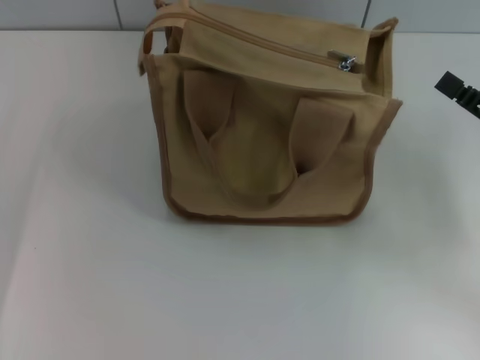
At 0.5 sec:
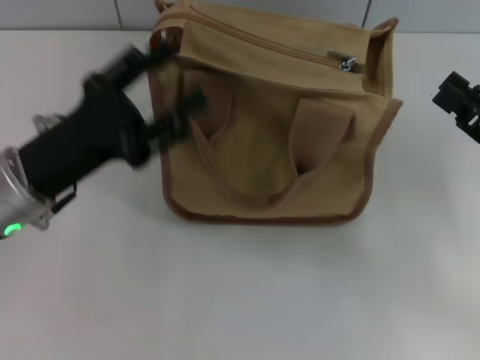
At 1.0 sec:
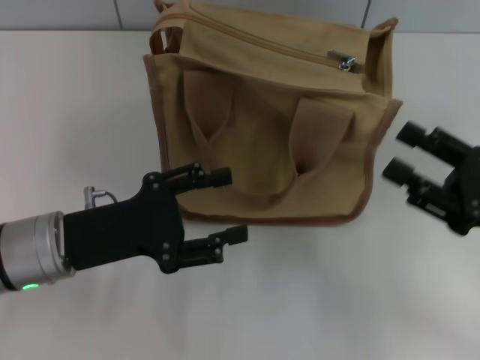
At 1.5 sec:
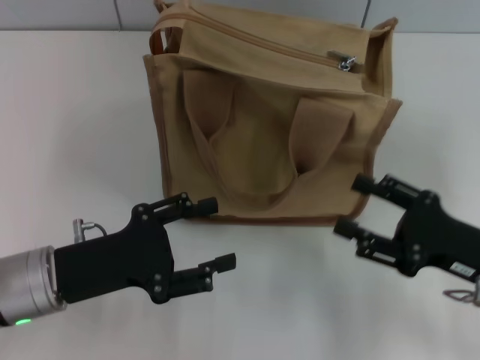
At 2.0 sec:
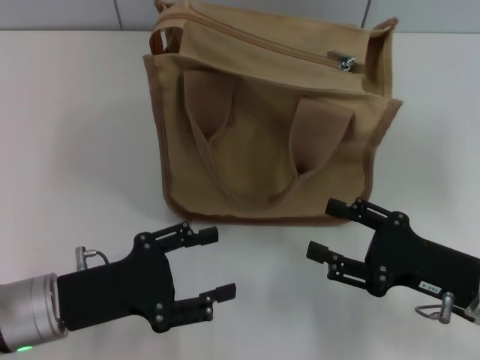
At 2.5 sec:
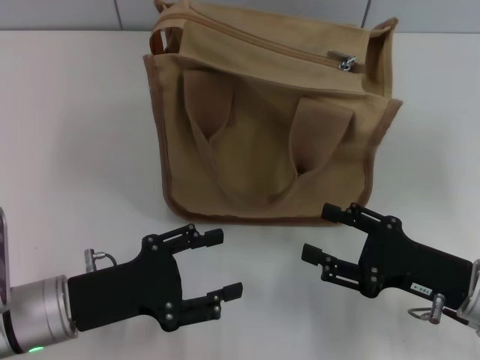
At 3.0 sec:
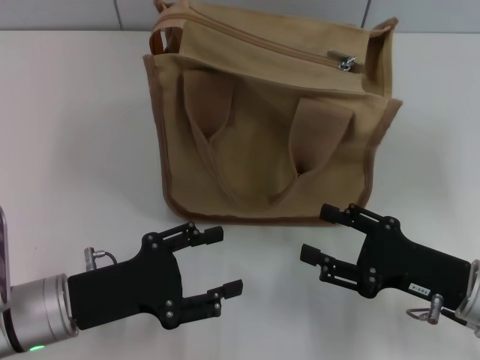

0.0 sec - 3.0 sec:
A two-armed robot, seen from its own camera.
0.0 sec - 1.5 sec: The left gripper shifts about 10 cm backward and to the right. The right gripper shifts about 5 cm to the left.
1.5 sec - 3.0 sec: The grippers make only small movements.

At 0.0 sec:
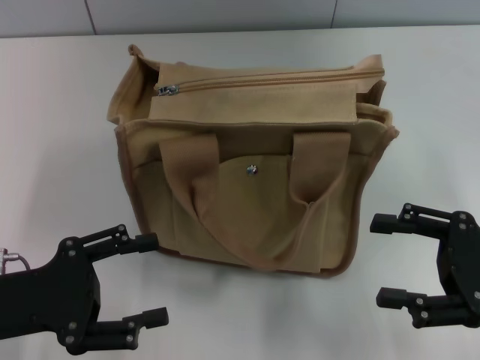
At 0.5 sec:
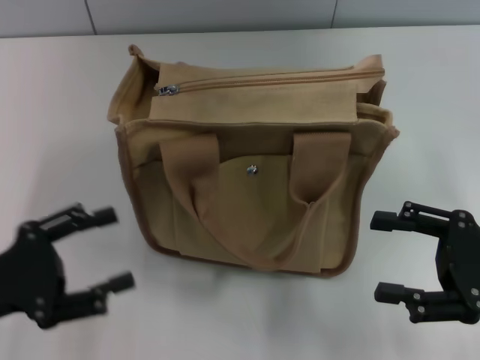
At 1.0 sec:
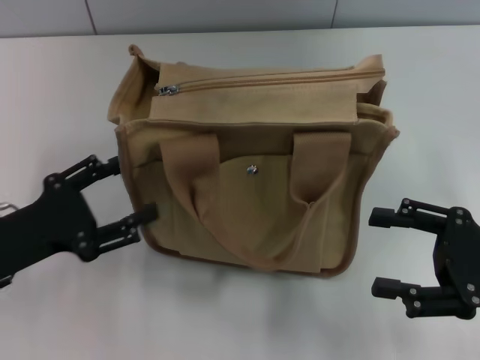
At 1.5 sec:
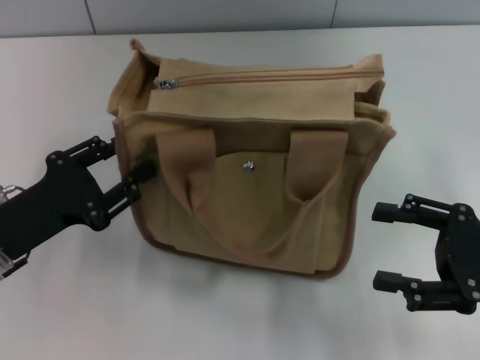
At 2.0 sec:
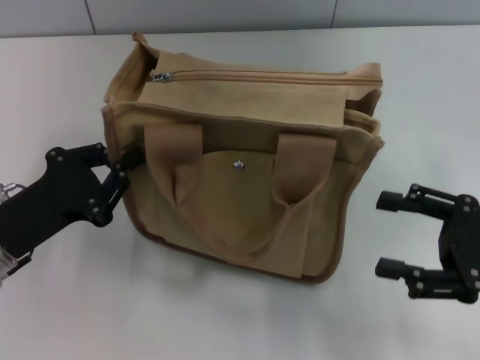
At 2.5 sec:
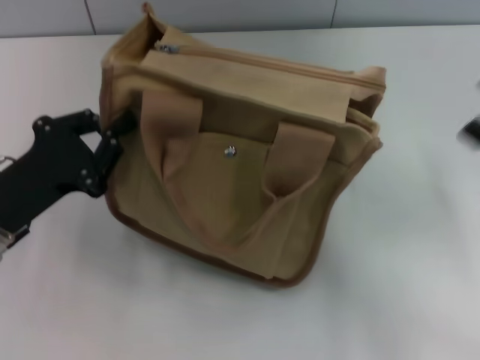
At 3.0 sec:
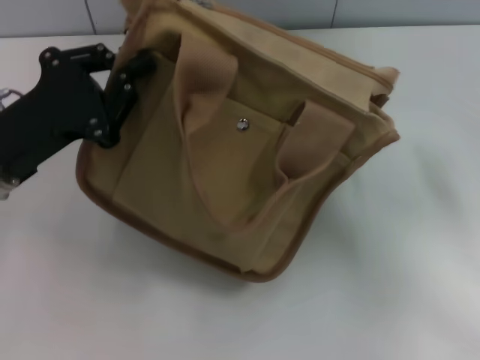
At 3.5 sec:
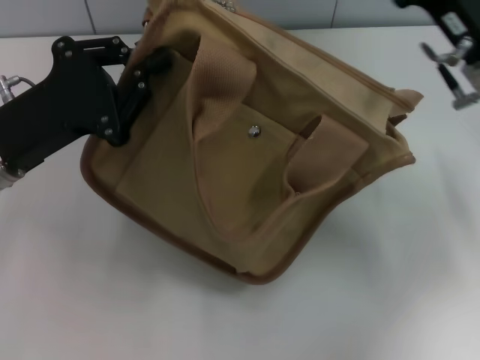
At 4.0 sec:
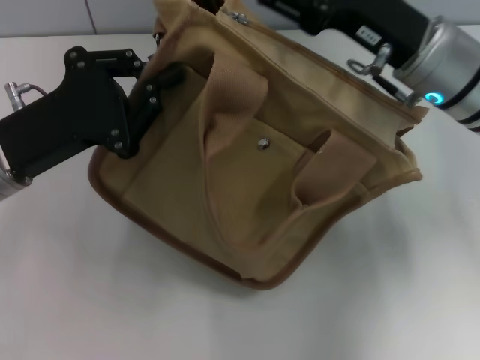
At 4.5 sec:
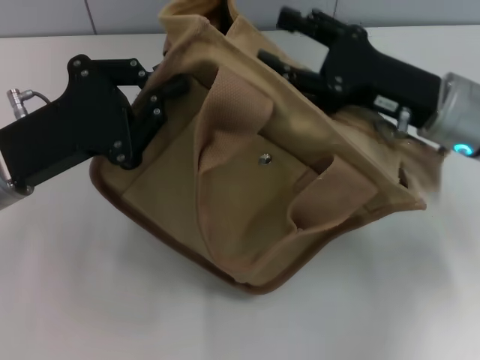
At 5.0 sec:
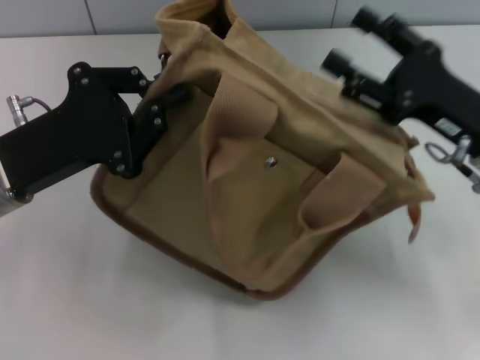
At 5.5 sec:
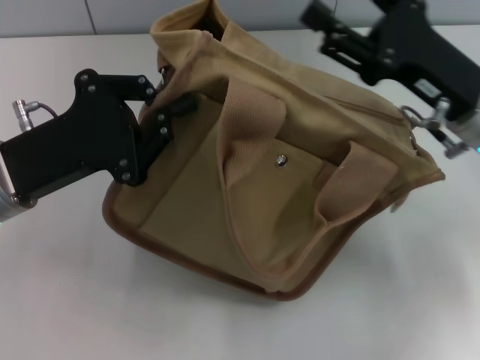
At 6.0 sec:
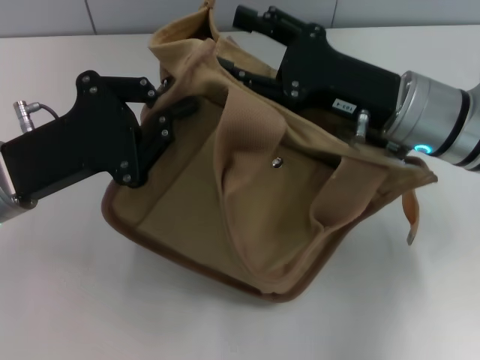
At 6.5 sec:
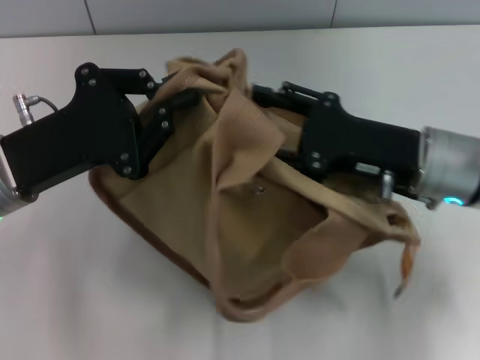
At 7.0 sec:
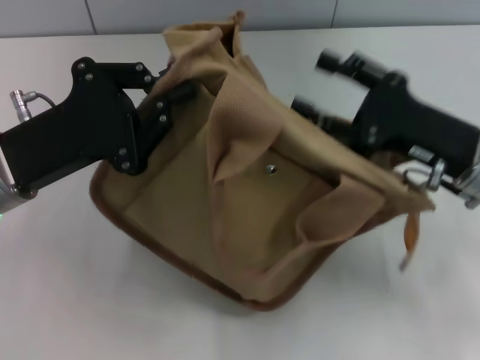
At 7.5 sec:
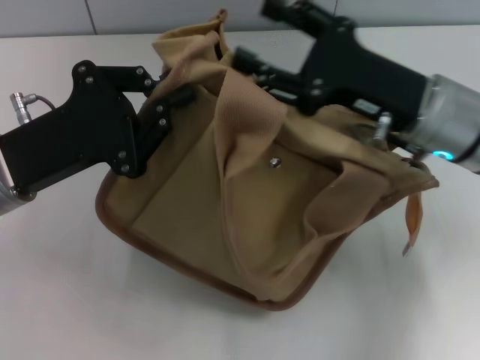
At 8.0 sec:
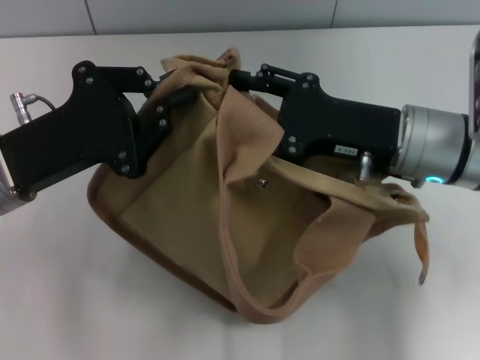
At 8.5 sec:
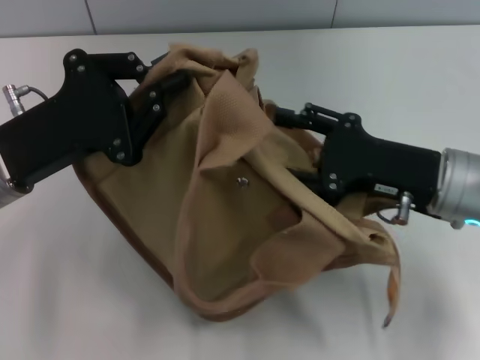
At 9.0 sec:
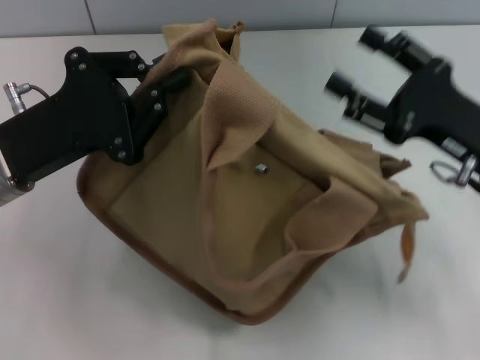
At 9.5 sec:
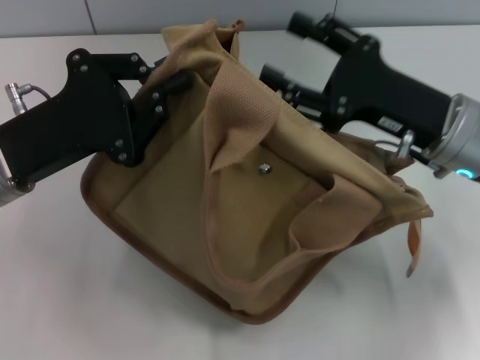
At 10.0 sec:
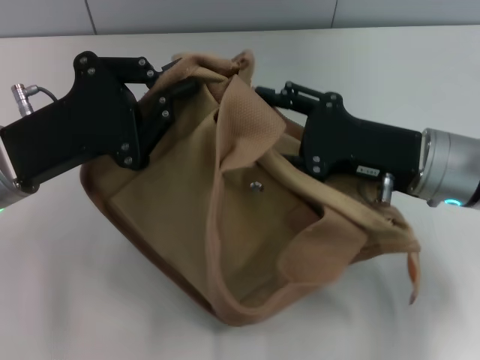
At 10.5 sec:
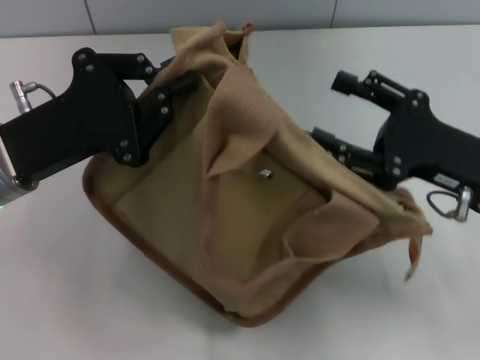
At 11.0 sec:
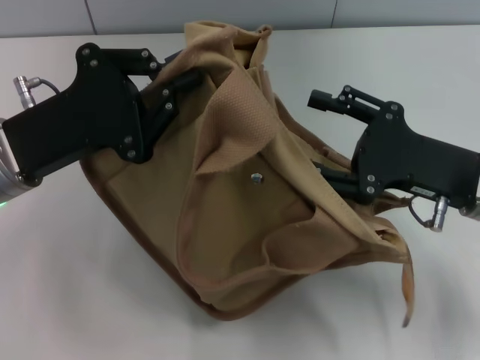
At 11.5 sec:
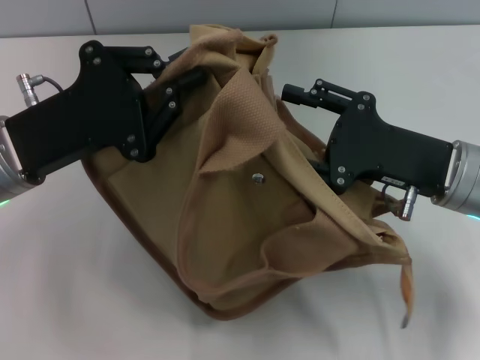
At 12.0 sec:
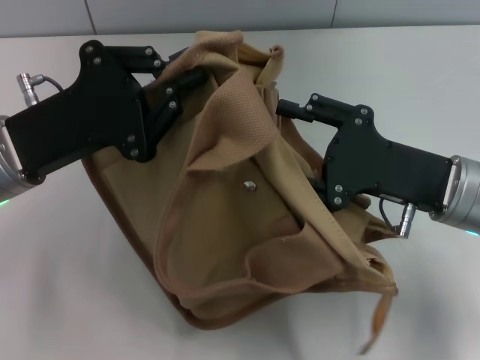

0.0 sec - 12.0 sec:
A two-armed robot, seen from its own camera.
0.0 sec - 2.0 sec: The left gripper closes its fingers.
2.0 sec - 4.0 sec: The right gripper heads forward, to the left and upward, covering some 20 cm. The left gripper is displaced upward and forward by approximately 10 cm.

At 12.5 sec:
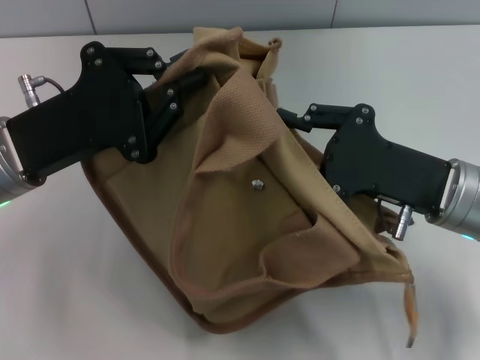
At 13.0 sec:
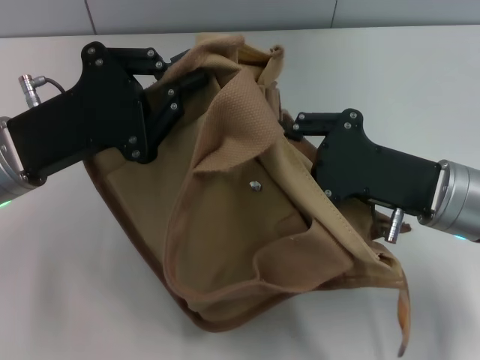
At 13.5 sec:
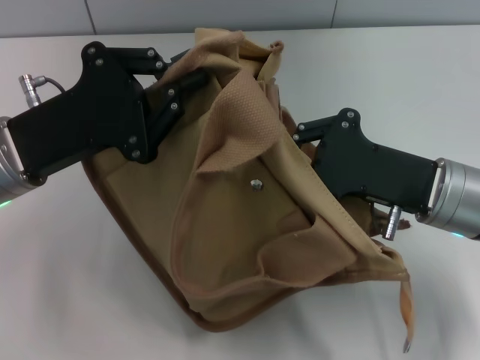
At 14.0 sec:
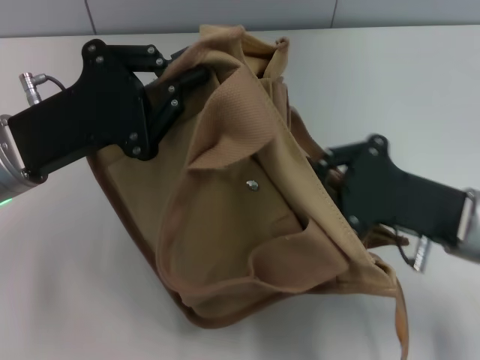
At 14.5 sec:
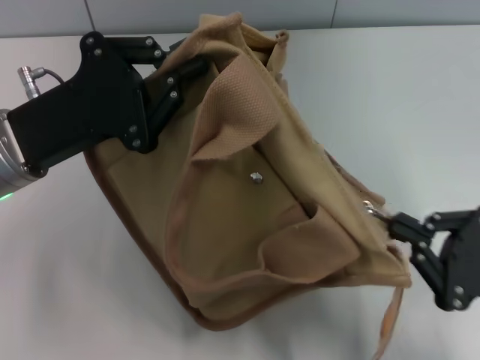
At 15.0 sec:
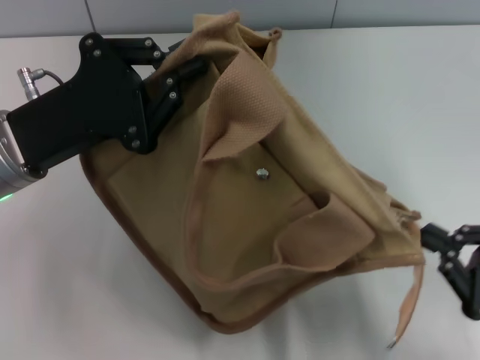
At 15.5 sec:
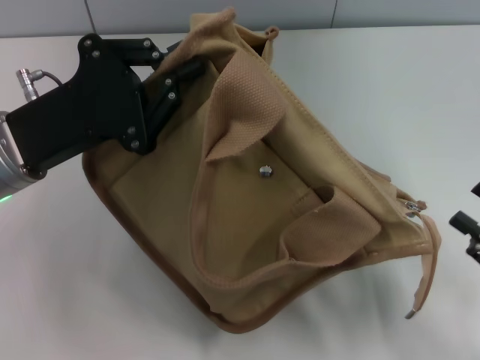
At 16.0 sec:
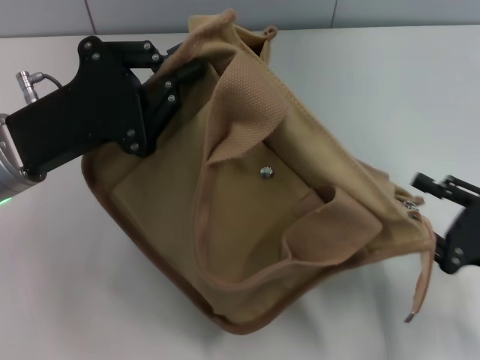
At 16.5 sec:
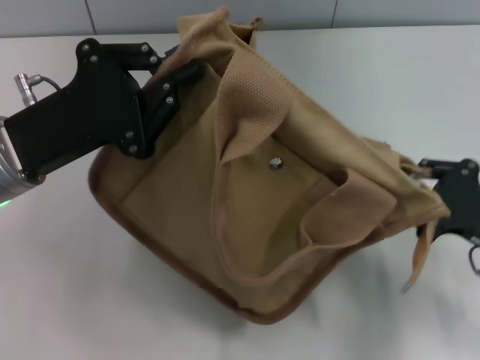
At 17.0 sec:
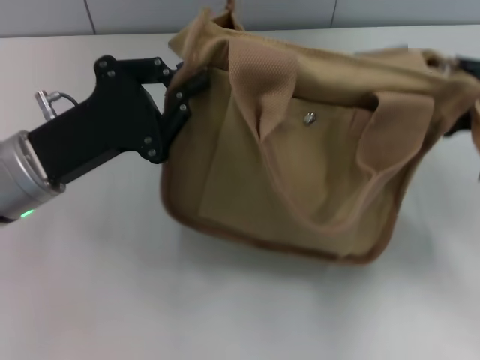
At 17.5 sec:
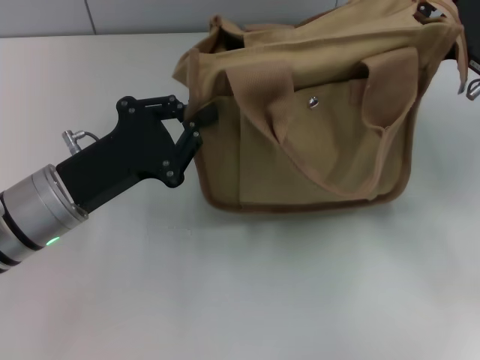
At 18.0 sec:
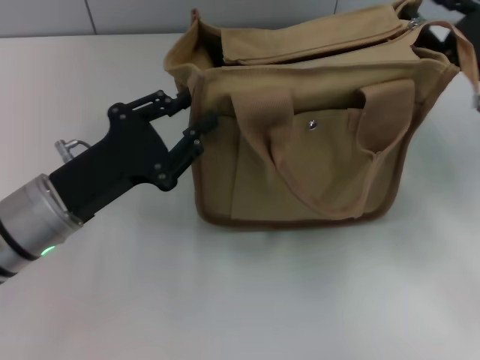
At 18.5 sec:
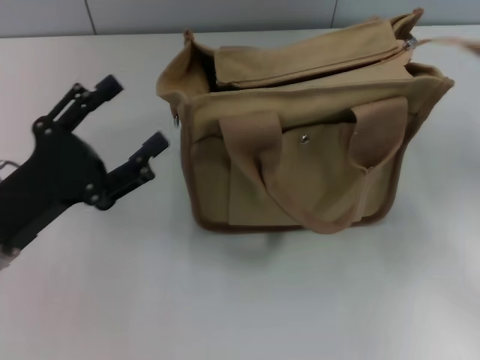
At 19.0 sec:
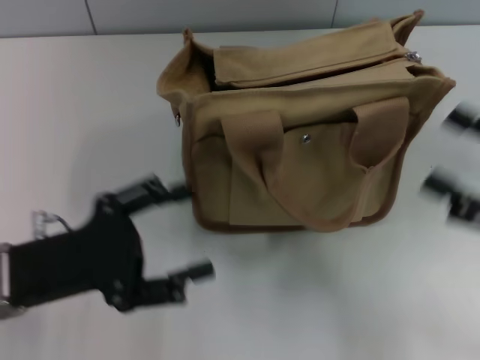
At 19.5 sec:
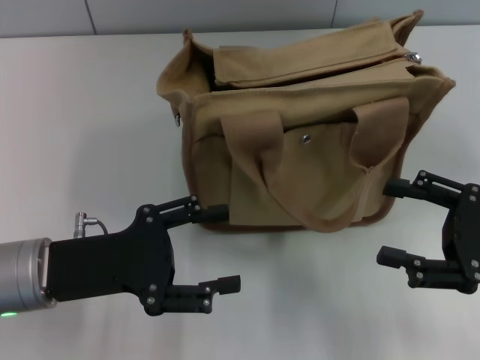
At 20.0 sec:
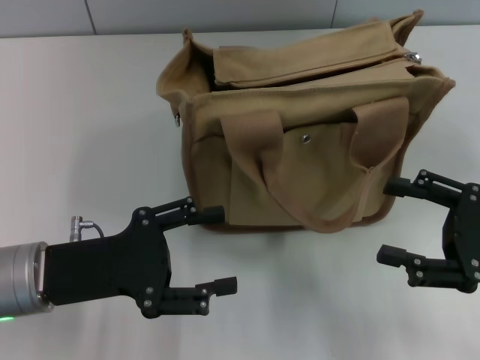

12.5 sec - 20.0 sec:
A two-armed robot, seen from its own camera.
Step, 12.5 sec - 15.5 sec: Pull open the zipper with your right hand.
Step, 16.0 sec - 18.0 sec: Grab the bag with your left hand.
12.5 sec - 14.5 sec: The right gripper goes about 15 cm backward and to the right, and closes its fingers.
14.5 sec - 16.5 sec: The right gripper ends up about 5 cm from where it was.
16.5 sec - 18.0 sec: The right gripper moves forward and upward, roughly 15 cm. Meanwhile the left gripper travels downward by some 5 cm.
18.0 sec - 20.0 sec: The right gripper heads backward, covering roughly 10 cm, and opens up. The left gripper opens.
